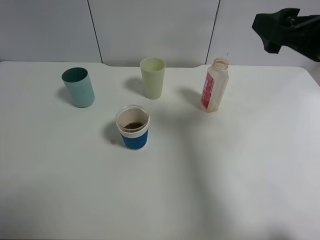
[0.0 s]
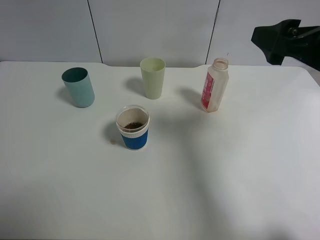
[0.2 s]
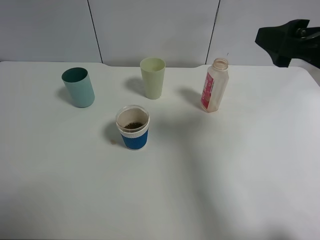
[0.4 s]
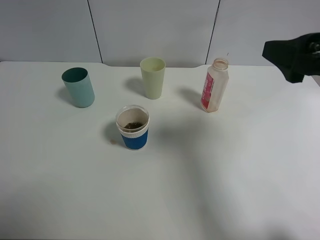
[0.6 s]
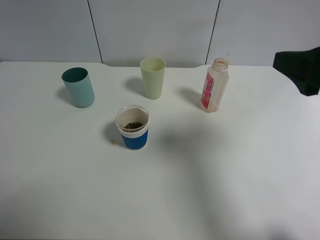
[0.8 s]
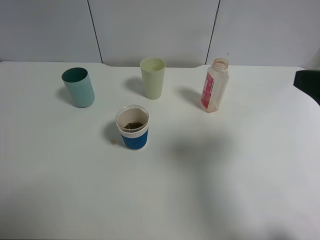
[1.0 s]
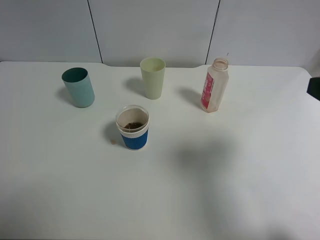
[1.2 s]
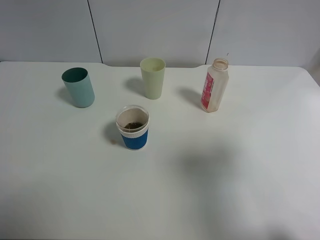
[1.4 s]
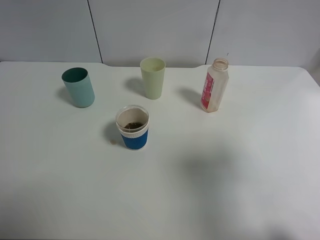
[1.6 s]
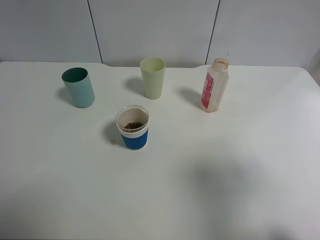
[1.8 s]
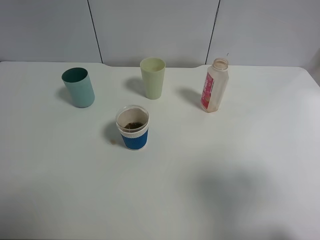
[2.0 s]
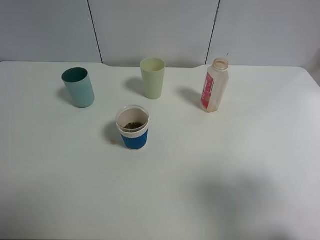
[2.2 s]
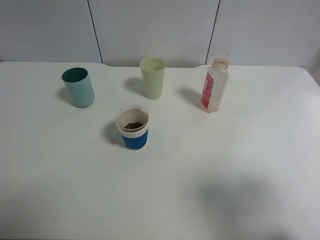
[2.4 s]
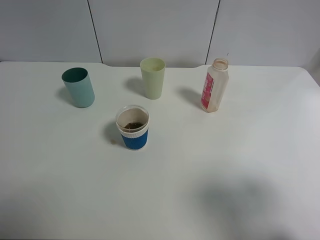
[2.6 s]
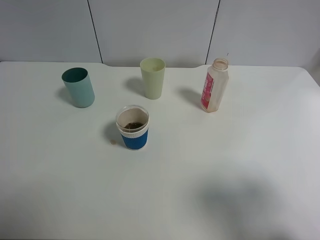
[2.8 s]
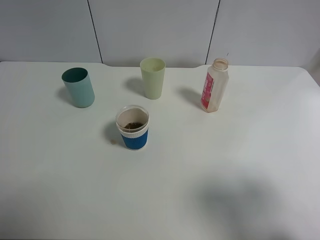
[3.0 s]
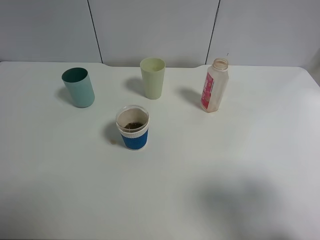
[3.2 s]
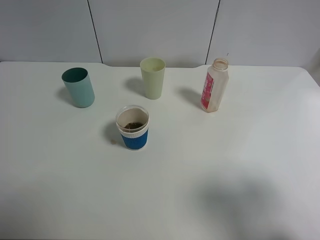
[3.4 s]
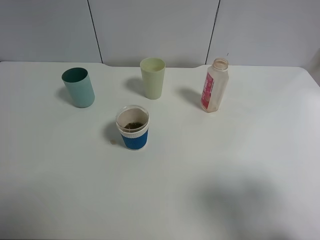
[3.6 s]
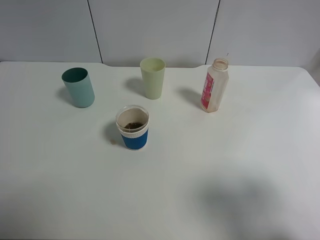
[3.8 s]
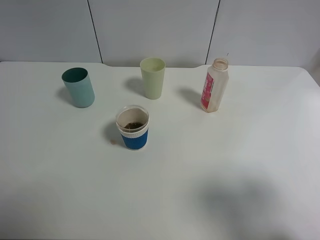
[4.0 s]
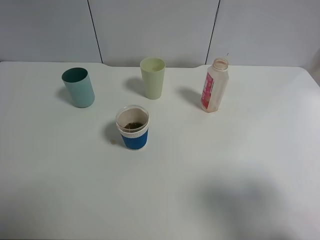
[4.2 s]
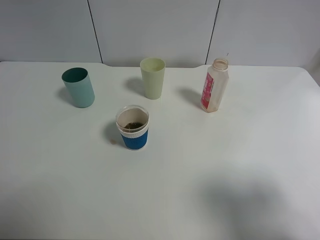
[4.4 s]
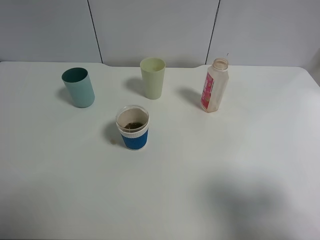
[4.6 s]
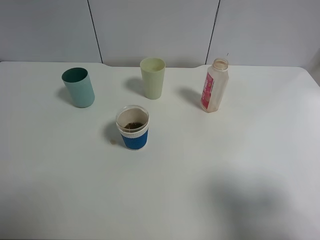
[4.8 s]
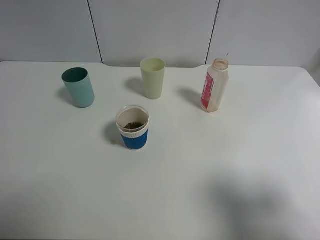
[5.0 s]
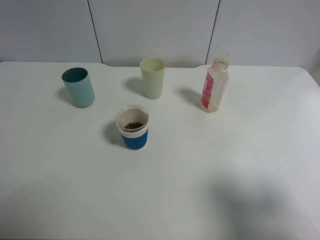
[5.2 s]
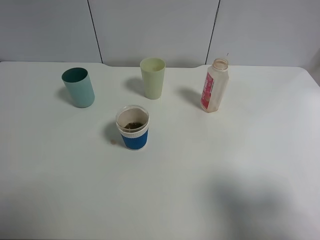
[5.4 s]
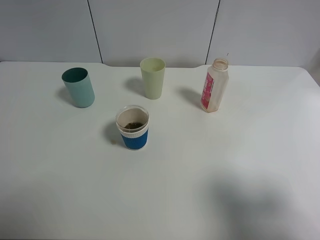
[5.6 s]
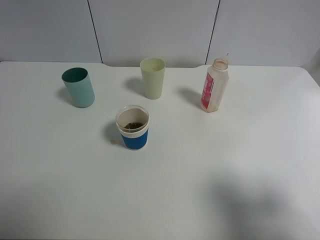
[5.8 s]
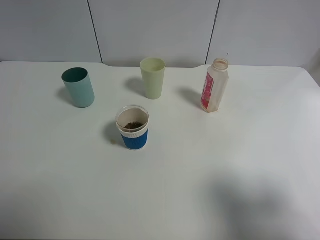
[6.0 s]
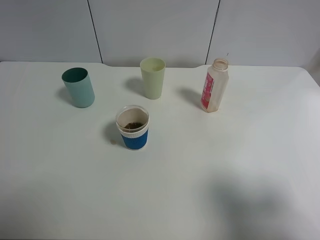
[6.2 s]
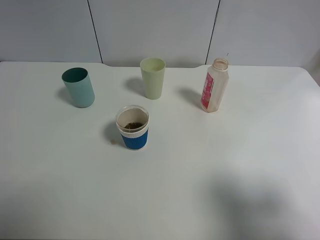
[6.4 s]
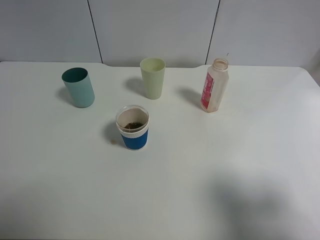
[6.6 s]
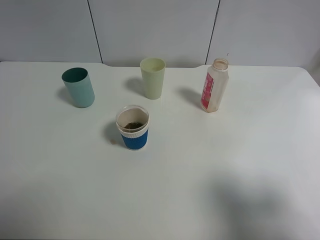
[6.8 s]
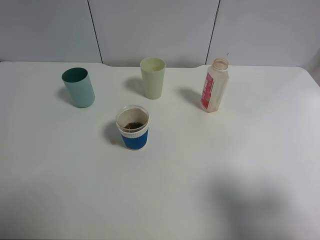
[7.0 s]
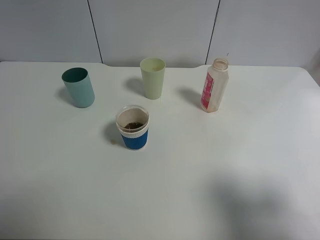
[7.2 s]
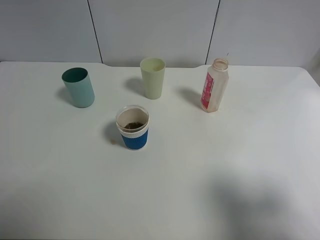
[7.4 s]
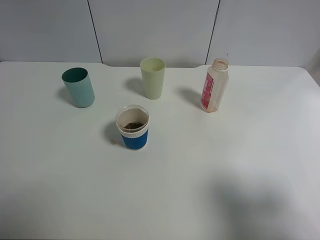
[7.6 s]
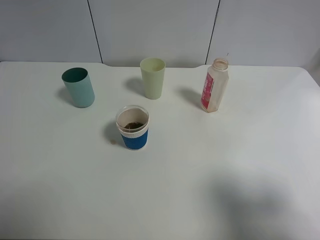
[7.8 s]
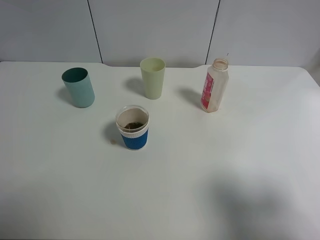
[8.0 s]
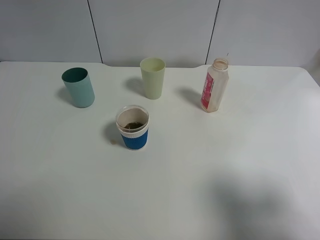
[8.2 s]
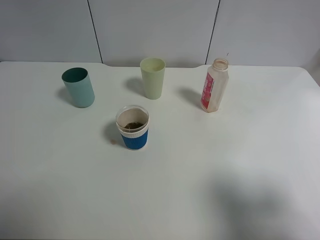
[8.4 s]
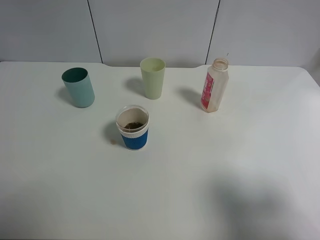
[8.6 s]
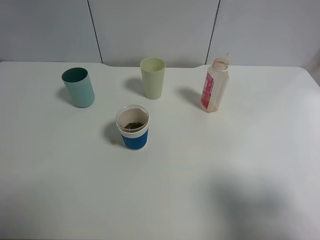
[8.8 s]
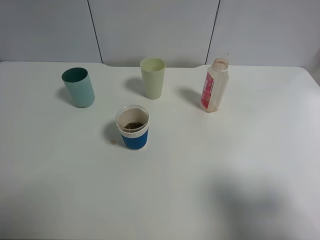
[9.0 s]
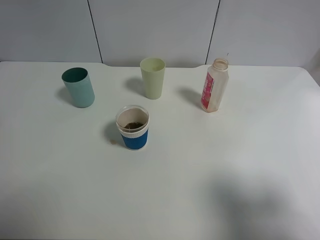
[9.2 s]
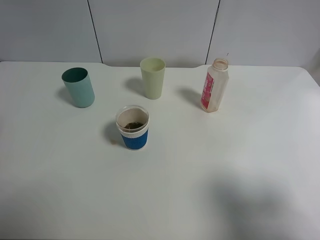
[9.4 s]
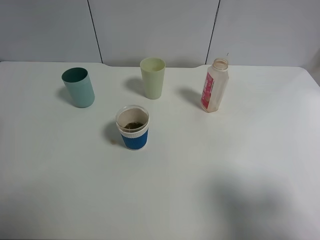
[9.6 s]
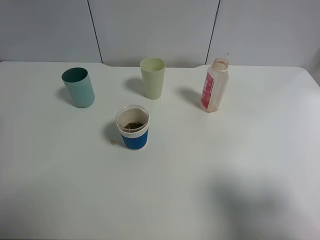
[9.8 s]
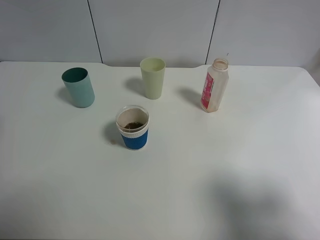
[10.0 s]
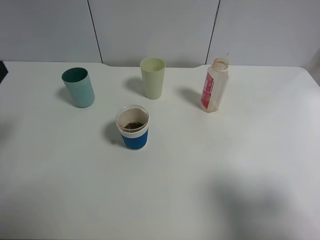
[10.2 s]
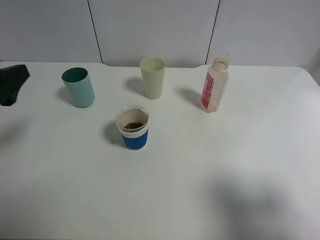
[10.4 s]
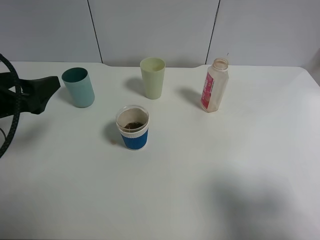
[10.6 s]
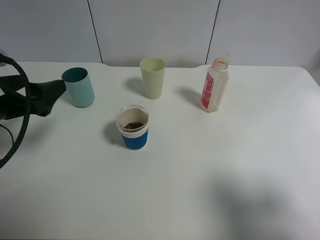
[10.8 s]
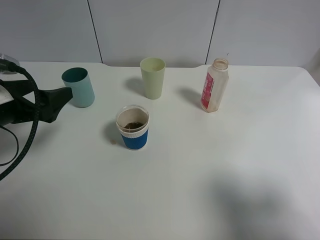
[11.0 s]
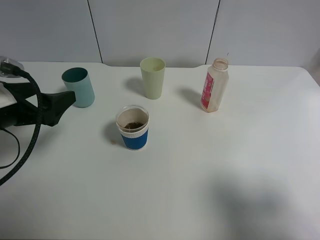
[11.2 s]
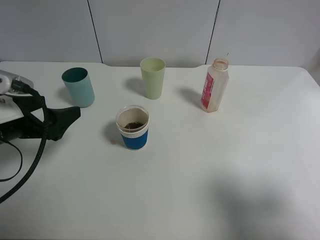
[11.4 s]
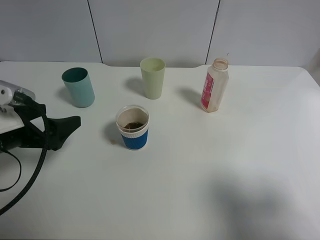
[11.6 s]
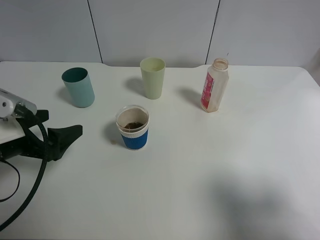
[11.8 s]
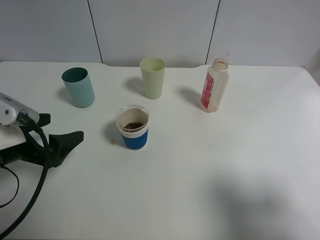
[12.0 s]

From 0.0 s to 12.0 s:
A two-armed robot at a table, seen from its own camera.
Task of the whole recording: use a clamp to hold the bottle of the drink, pour the beverage into a random cup, then clamp the cup containing the drink and pour the drink into another random cup.
From 0.0 s to 1.6 s: The right gripper heads backward, covering roughly 15 cm.
From 1.6 s to 3.0 s: The right gripper shifts some 5 cm backward.
From 9.0 s to 10.4 s: The left gripper heads downward, covering roughly 10 cm.
From 10.4 s to 12.0 s: The left gripper heads downward, covering roughly 10 cm.

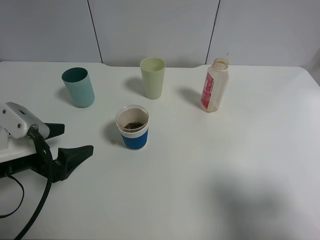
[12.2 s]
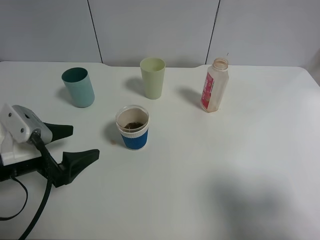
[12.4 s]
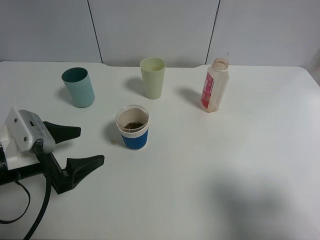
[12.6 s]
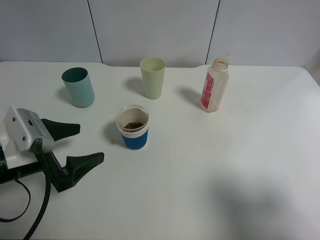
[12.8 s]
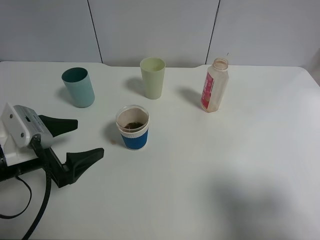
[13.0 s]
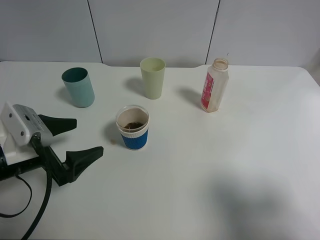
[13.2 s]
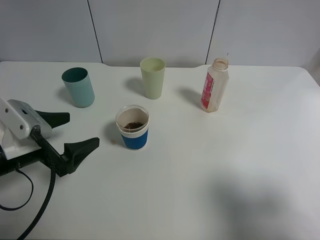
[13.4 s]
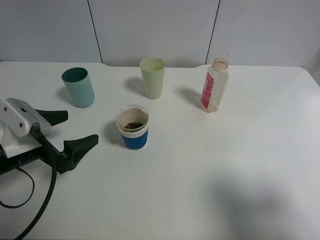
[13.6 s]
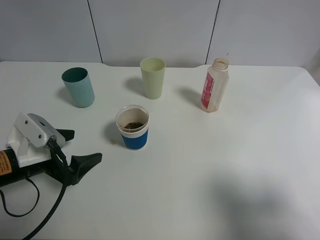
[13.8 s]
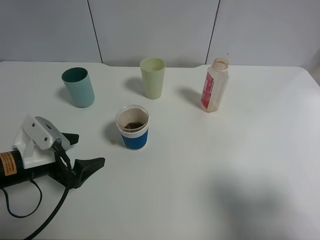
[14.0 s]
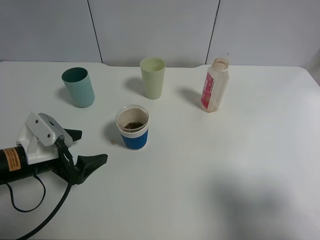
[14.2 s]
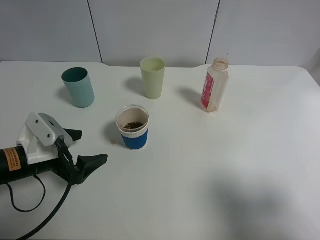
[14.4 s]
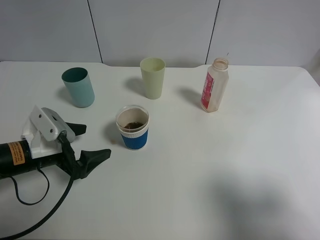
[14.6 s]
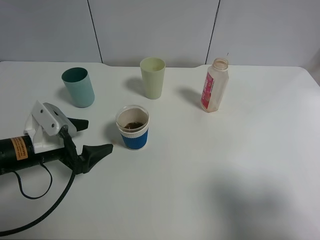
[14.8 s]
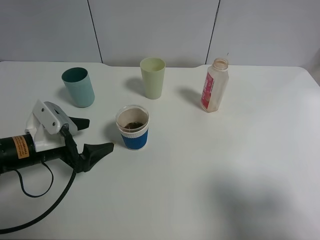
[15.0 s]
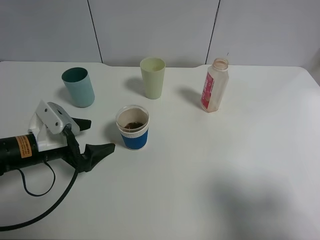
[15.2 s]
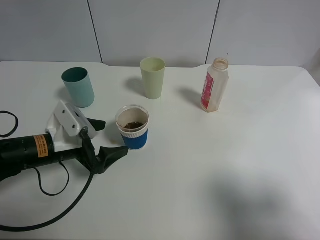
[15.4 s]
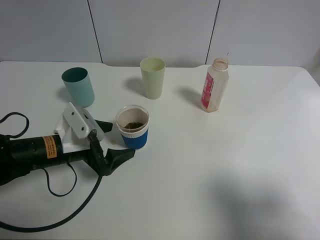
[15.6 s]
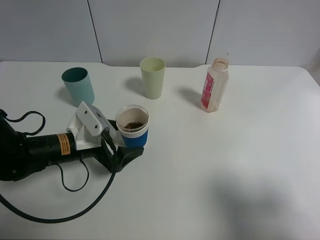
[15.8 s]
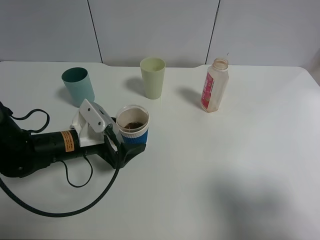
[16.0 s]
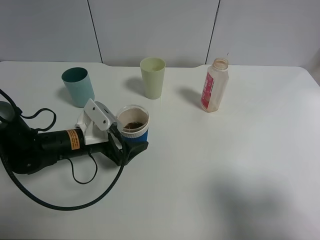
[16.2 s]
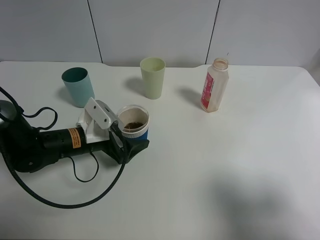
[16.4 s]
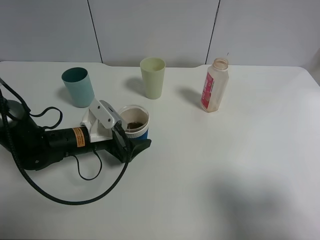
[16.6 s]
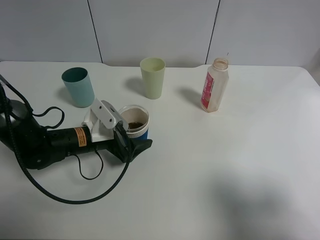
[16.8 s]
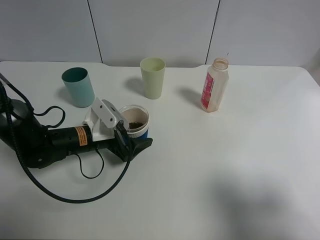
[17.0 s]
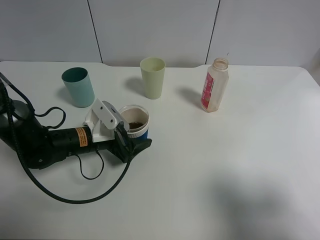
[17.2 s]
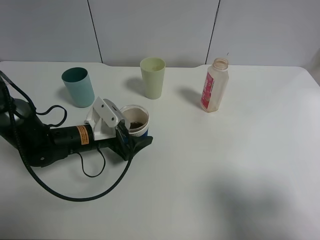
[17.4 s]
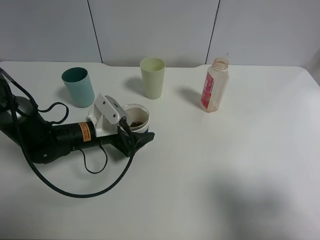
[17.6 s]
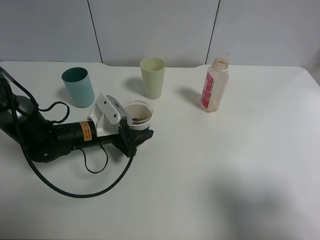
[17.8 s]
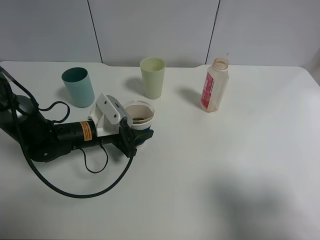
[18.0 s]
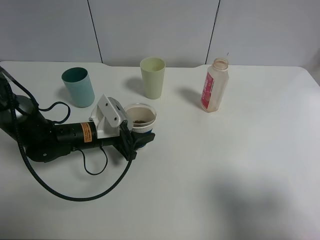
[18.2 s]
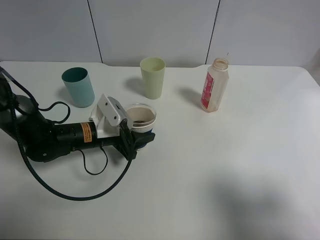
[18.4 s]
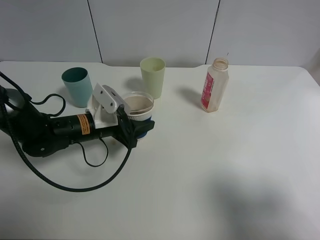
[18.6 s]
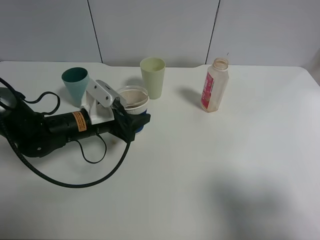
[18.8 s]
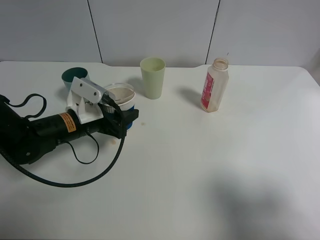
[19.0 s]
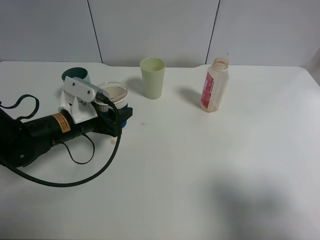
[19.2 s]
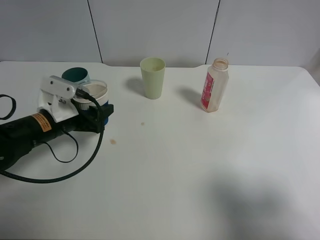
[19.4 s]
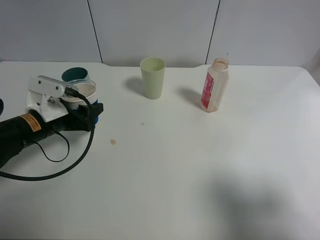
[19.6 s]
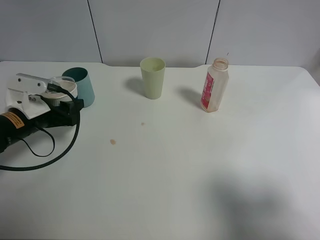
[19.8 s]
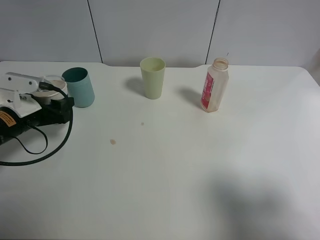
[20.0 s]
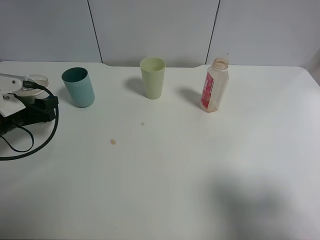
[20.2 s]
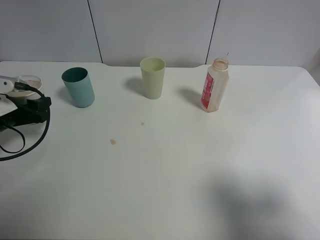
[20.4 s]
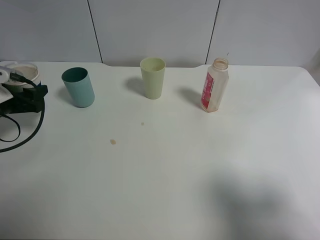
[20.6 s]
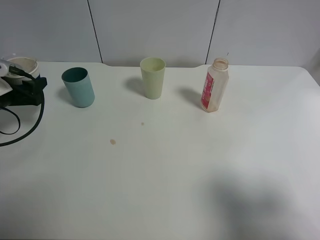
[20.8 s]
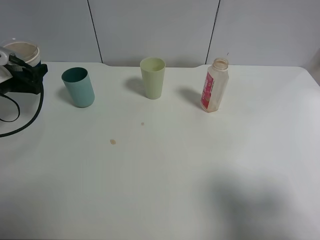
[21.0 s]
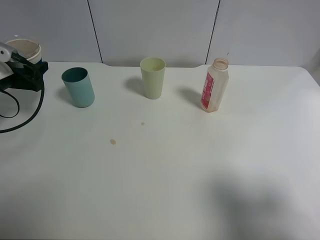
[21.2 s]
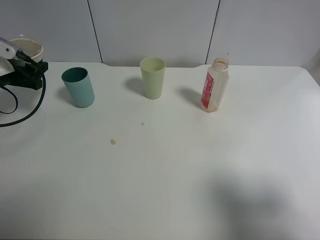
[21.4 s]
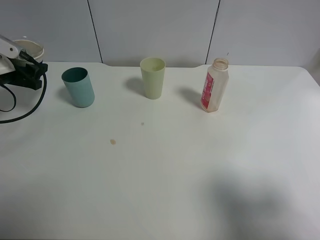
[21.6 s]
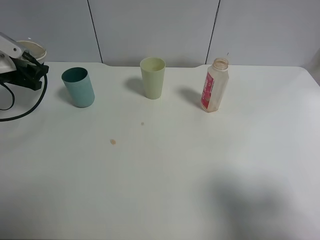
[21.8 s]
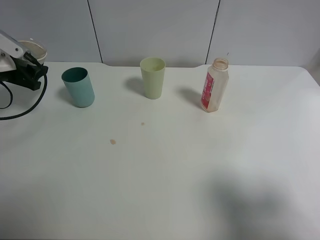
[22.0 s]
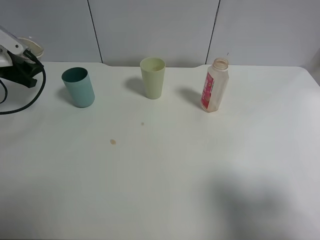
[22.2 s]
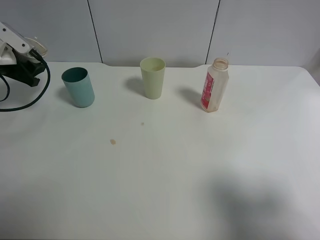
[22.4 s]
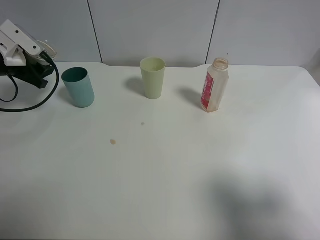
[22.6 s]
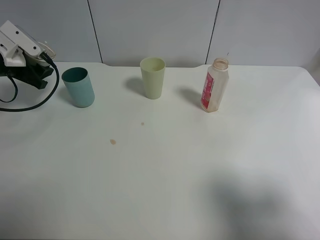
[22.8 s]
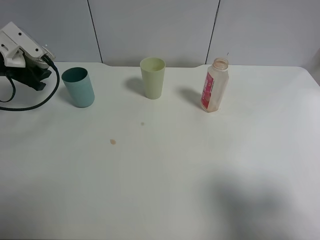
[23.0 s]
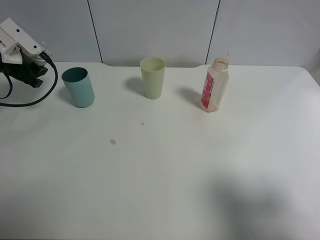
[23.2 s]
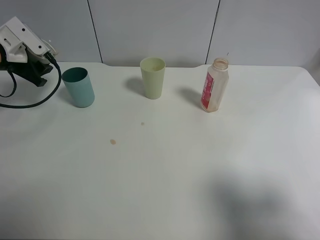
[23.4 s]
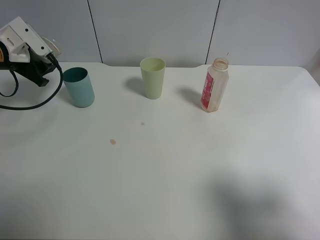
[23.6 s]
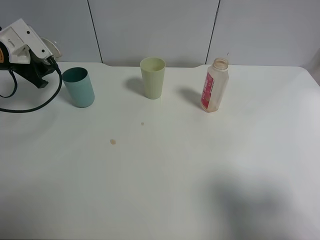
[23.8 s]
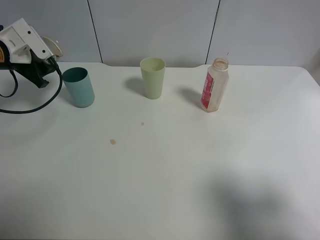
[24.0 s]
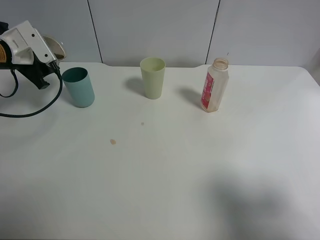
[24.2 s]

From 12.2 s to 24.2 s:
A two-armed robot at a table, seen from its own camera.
Task of the whole recording: use a clamp to hold the bottle of the drink, pour the beverage into a random cup, then clamp the cup containing the drink and pour the drink into another random cup.
Step, from 12.2 s to 18.8 s: Pick up the paper cup with left gripper.
From 12.2 s to 13.8 s: The grippers stay close to where they were, moving slightly.
From 13.8 s to 15.2 s: The grippers stay close to where they were, moving slightly.
From 15.2 s to 16.6 s: The left gripper travels to the right by roughly 5 cm.
From 16.6 s to 18.2 s: The left gripper closes.
From 18.2 s to 19.8 s: The left gripper shifts some 15 cm to the left.
From 19.8 s to 21.2 s: The left gripper shifts some 10 cm to the left and forward.
From 22.6 s to 24.2 s: The grippers move only a little.
